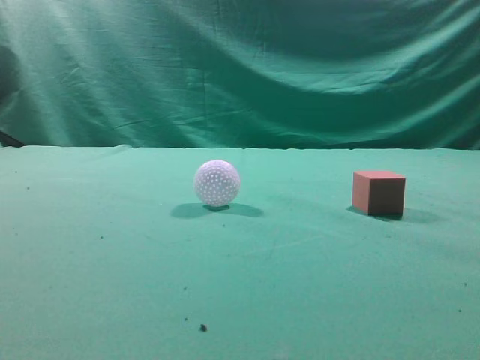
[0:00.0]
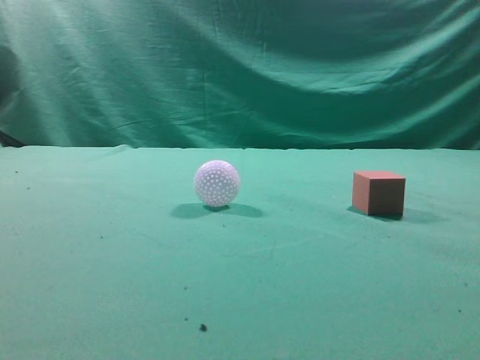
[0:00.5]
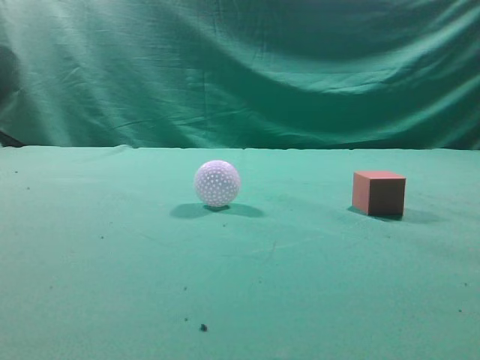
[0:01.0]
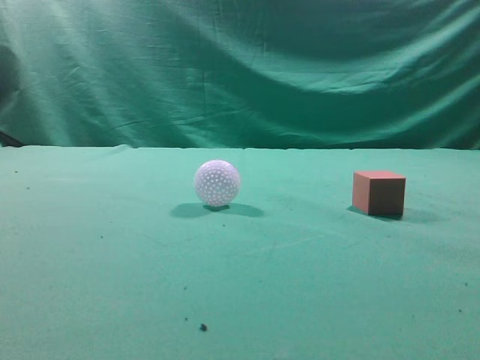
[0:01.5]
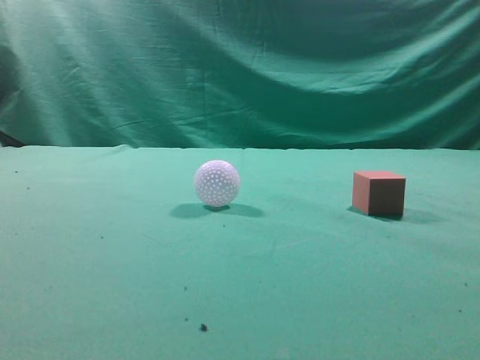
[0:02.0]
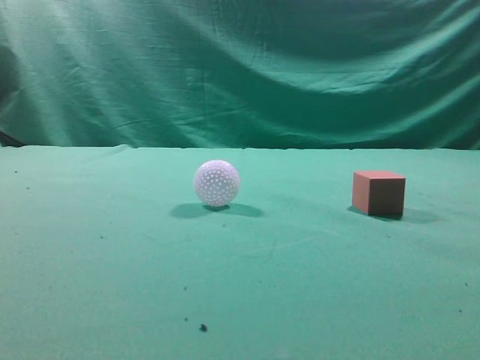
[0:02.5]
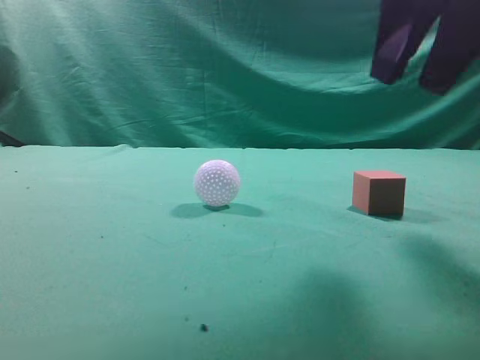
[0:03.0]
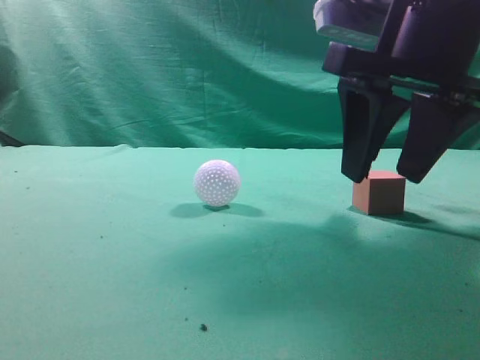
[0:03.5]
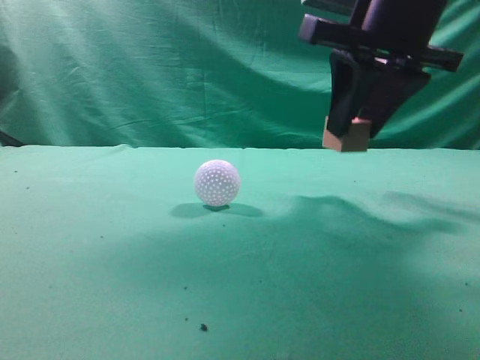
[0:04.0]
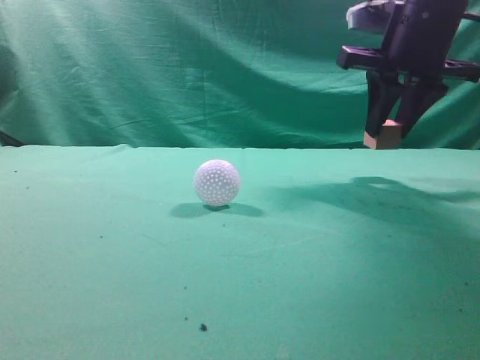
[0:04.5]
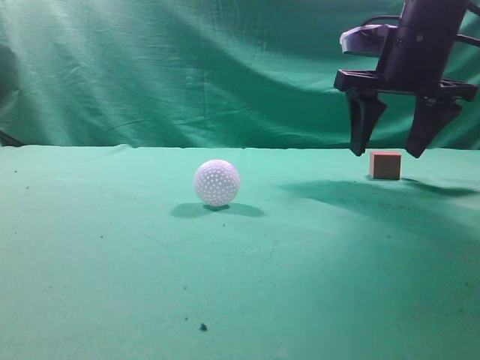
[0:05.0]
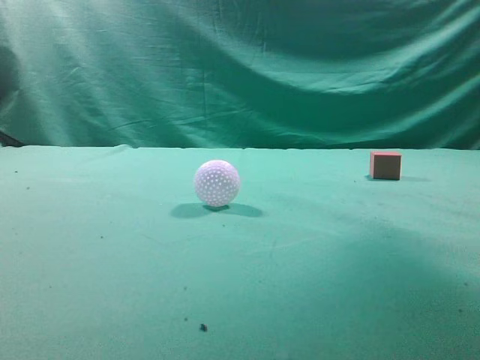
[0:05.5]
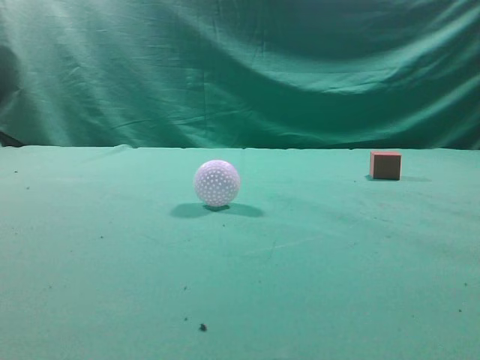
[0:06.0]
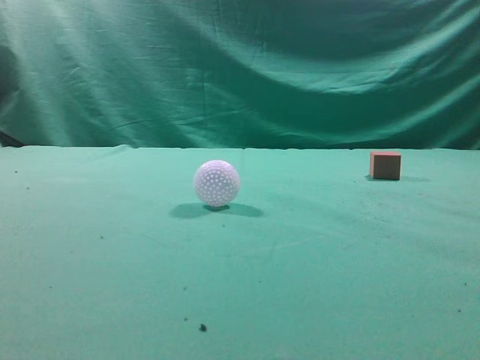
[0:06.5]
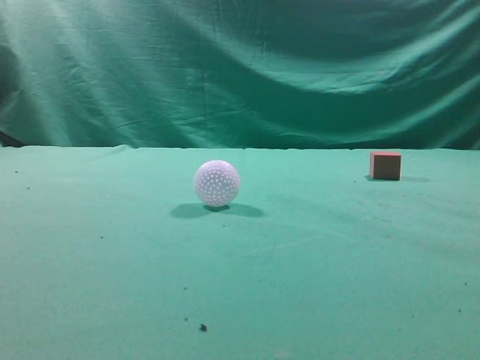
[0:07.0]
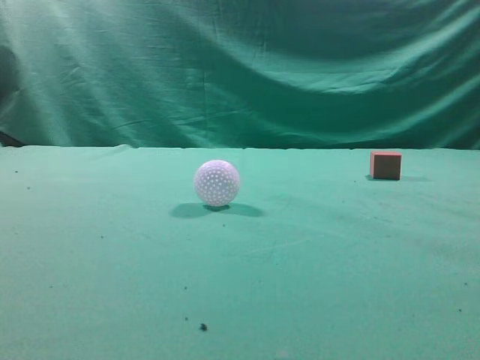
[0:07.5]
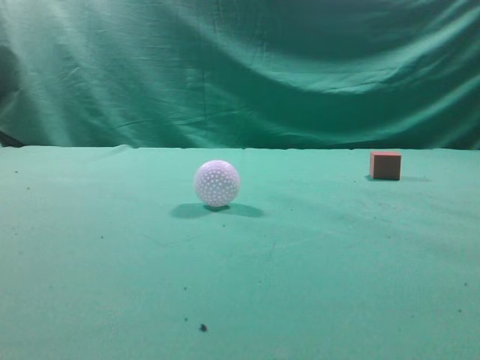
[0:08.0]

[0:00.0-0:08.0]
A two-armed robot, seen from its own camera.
Task of the whole recording: pick up the cube block and place it in another position on the table.
Step, 0:00.0 to 0:03.5: Pick up the small cube.
Step, 0:04.0 to 0:04.5: Place the small cube on the ahead of the table.
0:02.0 to 0:04.0: The right gripper shifts approximately 30 cm forward and to the left, and opens up.
0:04.0 to 0:06.0: The right gripper is displaced upward, backward and to the right by about 25 cm, and closes its fingers.
